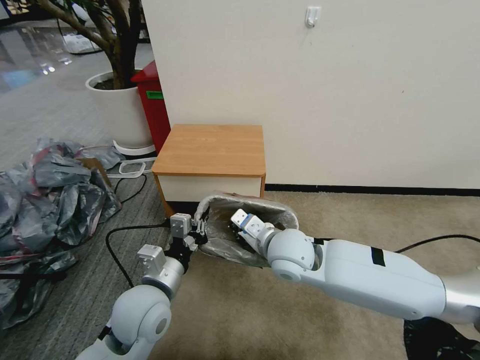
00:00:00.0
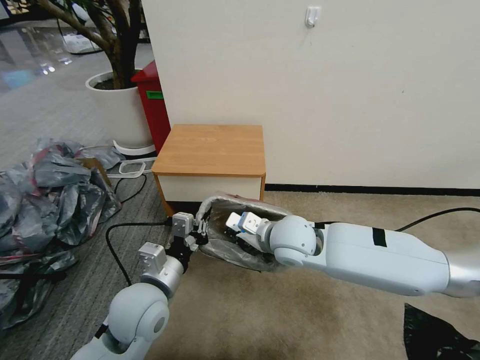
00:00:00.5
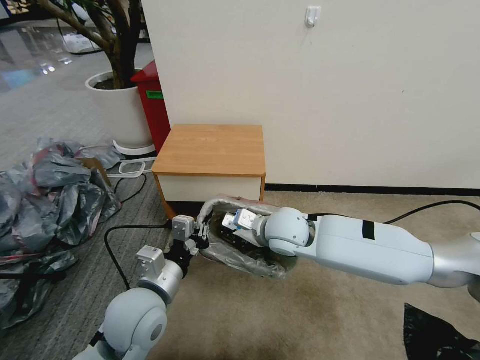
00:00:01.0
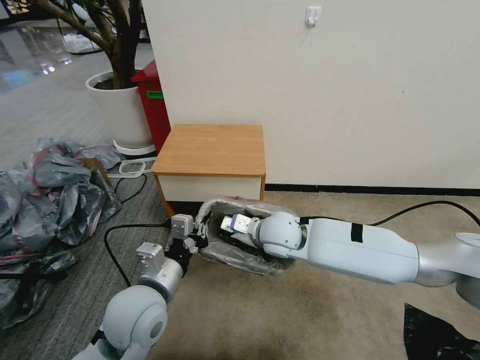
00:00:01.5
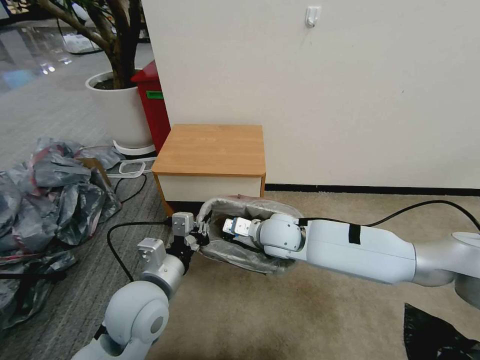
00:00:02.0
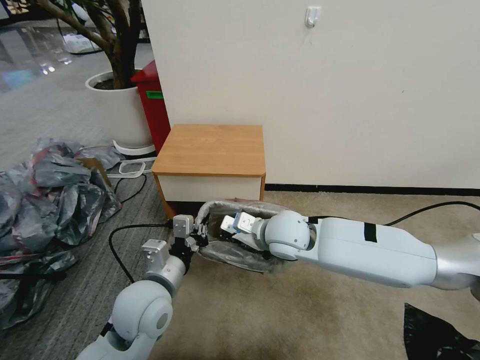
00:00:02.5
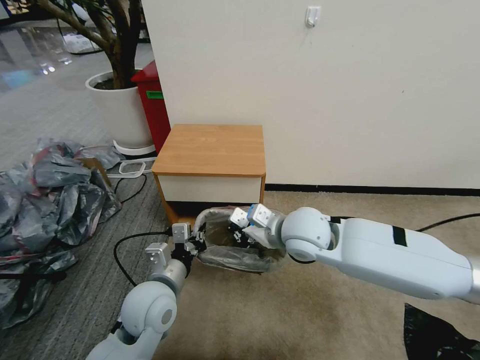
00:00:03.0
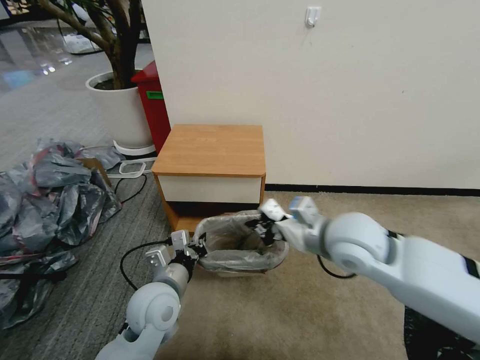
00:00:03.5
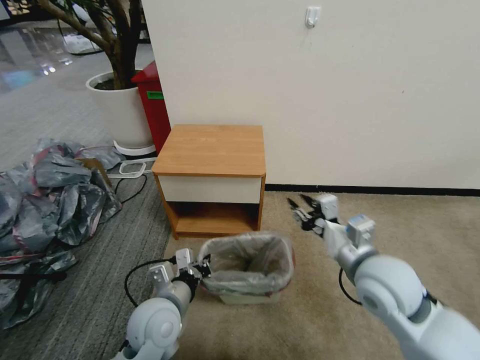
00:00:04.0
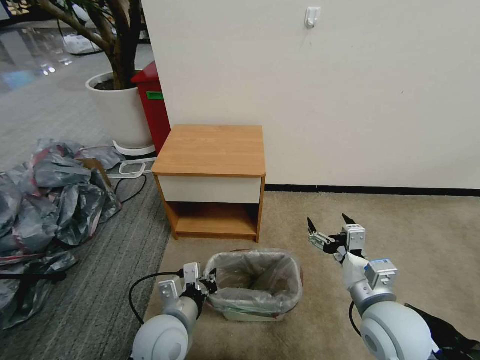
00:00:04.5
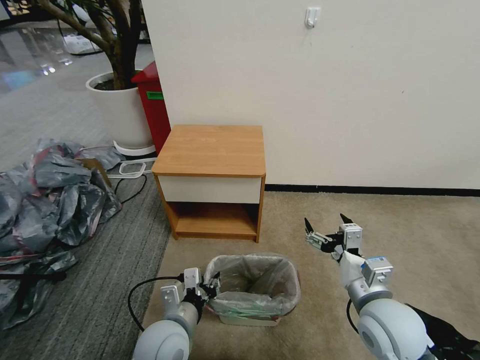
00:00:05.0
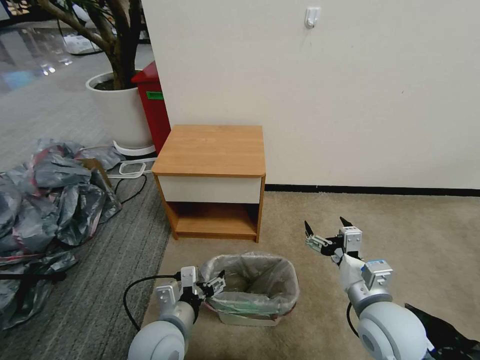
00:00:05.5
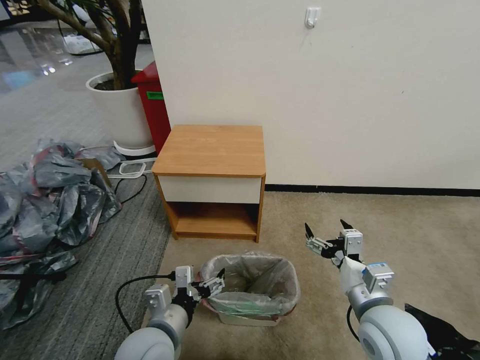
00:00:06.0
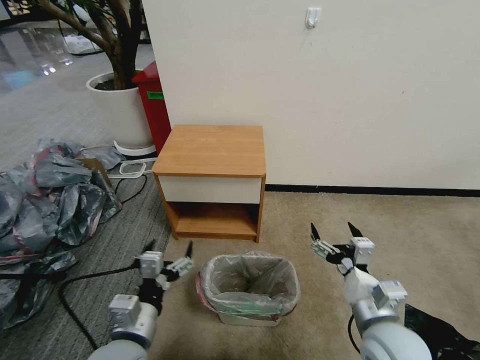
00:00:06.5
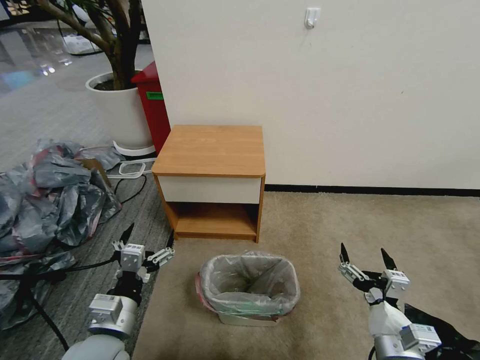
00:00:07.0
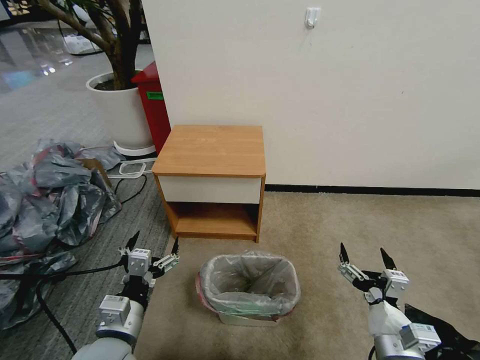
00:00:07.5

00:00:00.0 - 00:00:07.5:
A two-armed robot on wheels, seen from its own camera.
Task of the whole recording: Pick up the garbage bag from the table and place it over the trash can.
00:00:00.0 - 00:00:02.0: The right gripper travels forward by about 5 cm.
00:00:02.0 - 00:00:04.0: The right gripper shifts approximately 20 cm to the right and backward, and opens up, while the left gripper travels downward by some 10 cm.
00:00:04.0 - 00:00:05.5: The left gripper opens up; the right gripper shifts roughly 5 cm downward, and opens.
00:00:05.5 - 00:00:07.5: The right gripper travels backward and downward by some 10 cm. The left gripper is displaced to the left by roughly 10 cm.

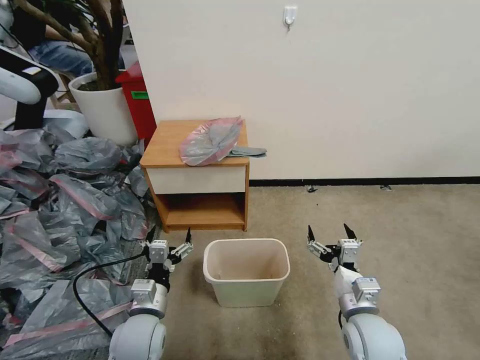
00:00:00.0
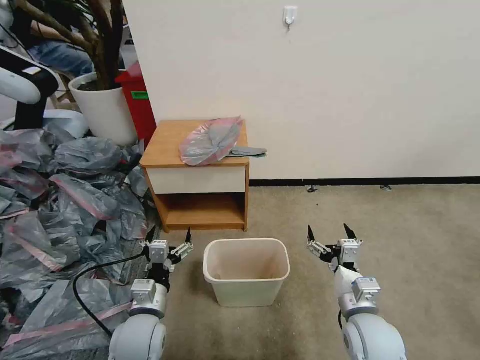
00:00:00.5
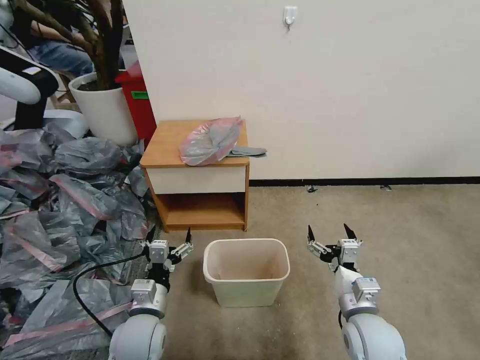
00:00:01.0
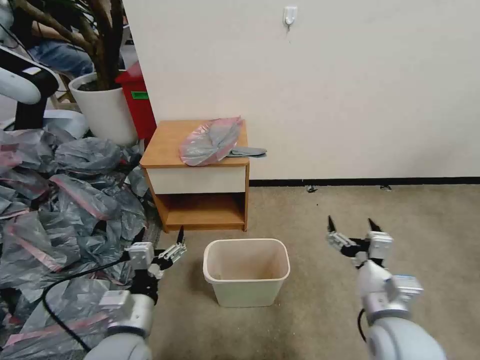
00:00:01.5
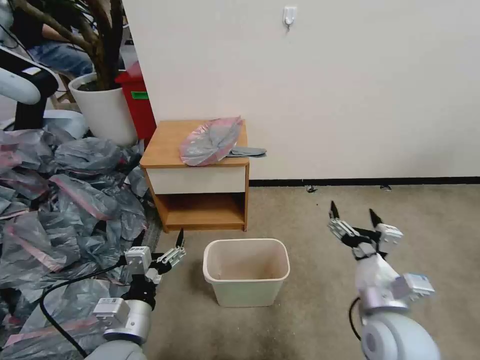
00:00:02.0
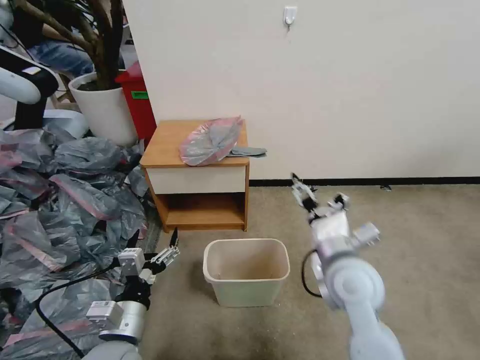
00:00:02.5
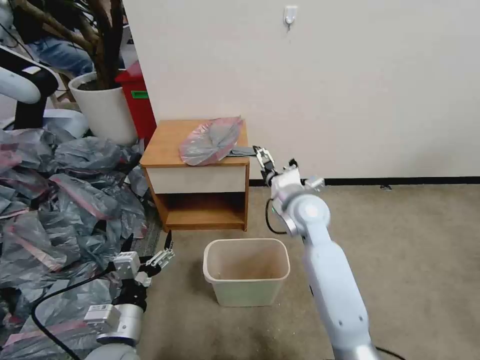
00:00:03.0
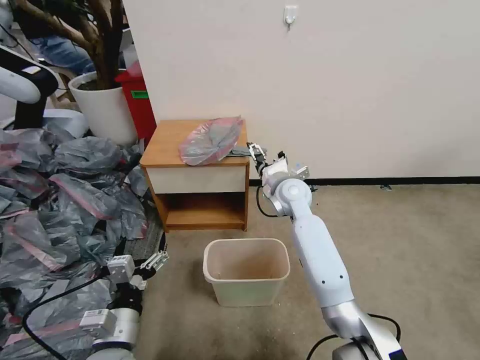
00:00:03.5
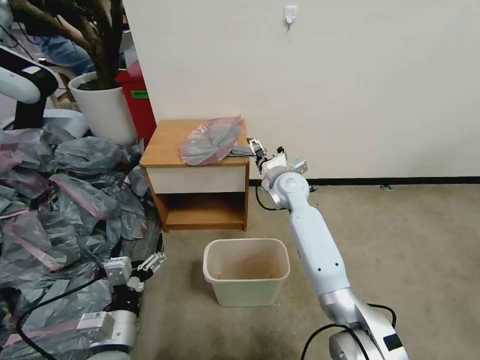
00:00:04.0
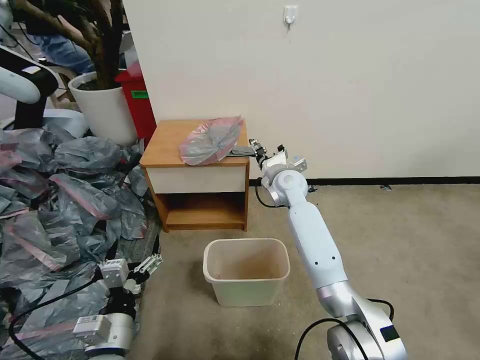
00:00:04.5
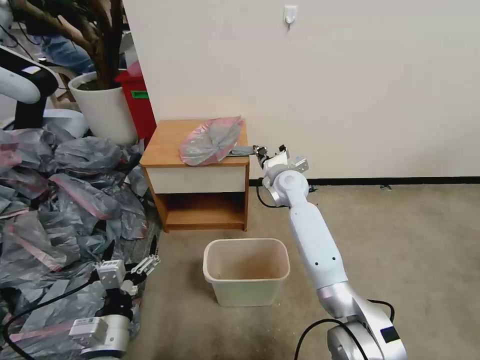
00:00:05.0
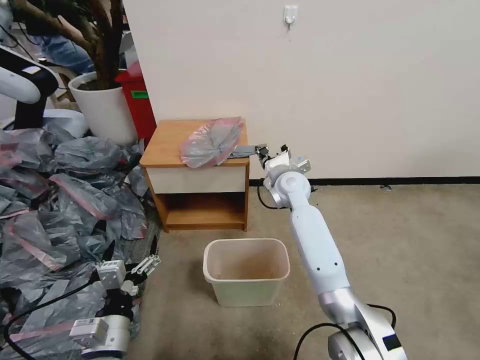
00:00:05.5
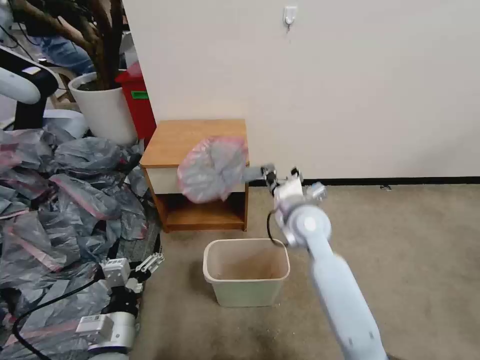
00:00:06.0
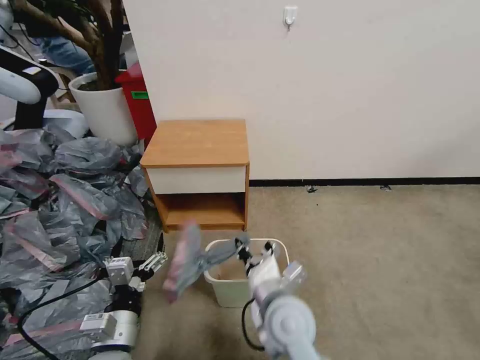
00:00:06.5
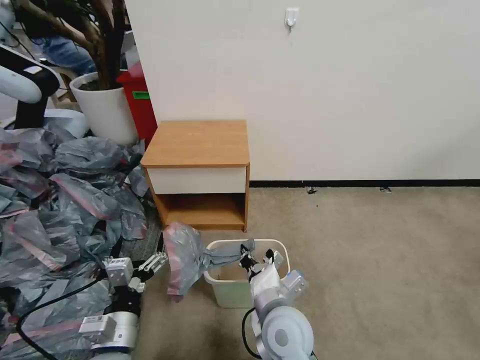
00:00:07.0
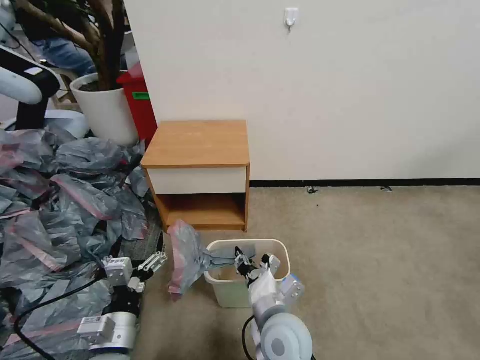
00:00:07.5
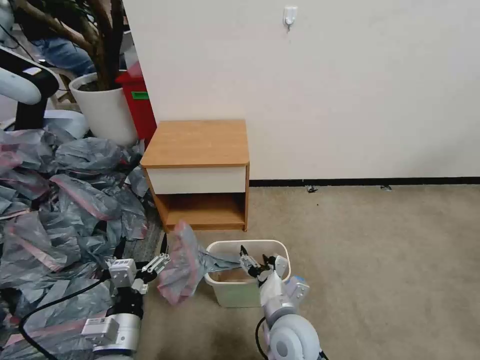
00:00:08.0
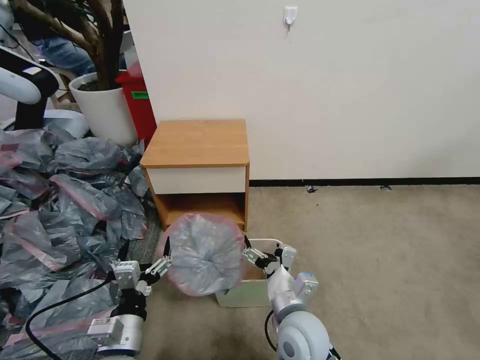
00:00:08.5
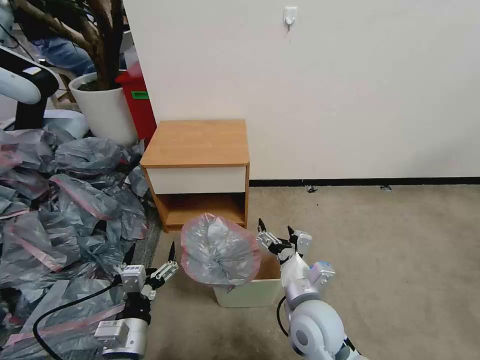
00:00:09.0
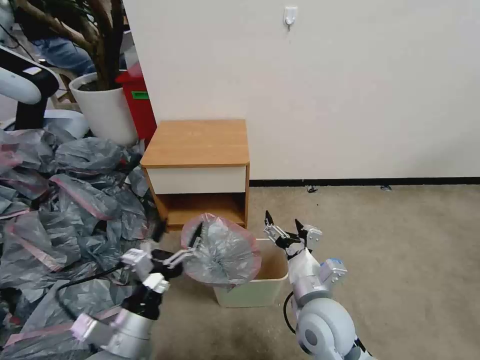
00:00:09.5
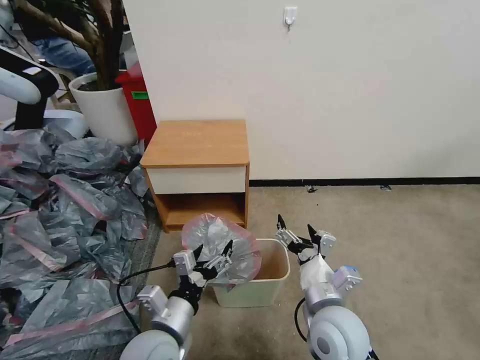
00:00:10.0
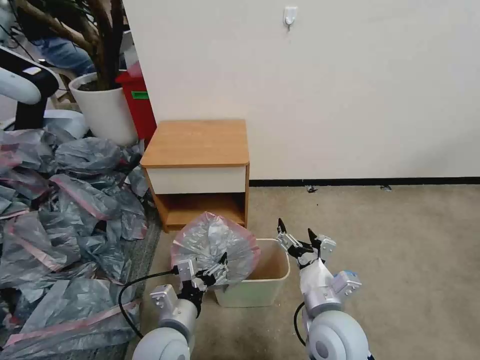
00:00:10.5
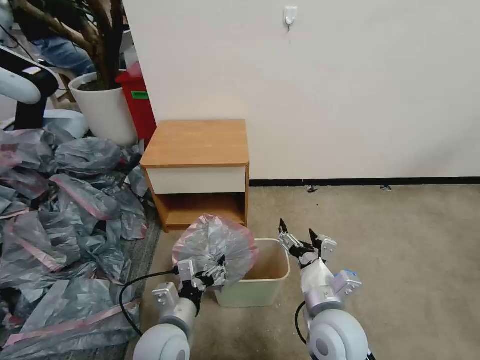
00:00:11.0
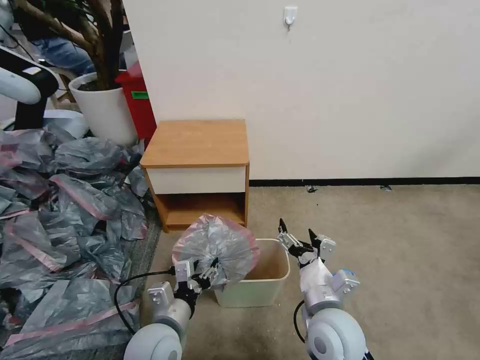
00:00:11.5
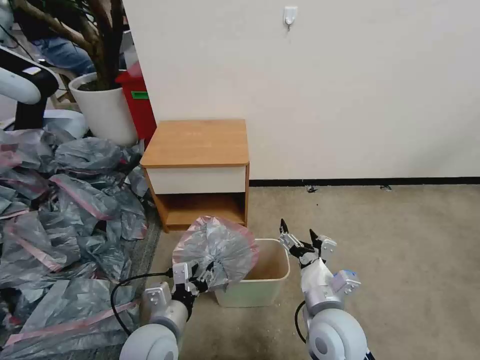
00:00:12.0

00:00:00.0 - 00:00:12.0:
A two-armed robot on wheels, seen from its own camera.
Task of the whole recording: Pick up the garbage bag from the table and place it over the trash can.
00:00:02.0 - 00:00:04.0: The right gripper moves forward, roughly 35 cm.
00:00:04.0 - 00:00:06.0: The right gripper goes about 10 cm backward, and closes up.
00:00:06.0 - 00:00:08.0: The right gripper shifts approximately 25 cm backward and downward, and opens.
00:00:08.0 - 00:00:10.0: The right gripper heads to the right and upward, covering approximately 10 cm. The left gripper heads to the right, covering some 5 cm.
00:00:10.0 - 00:00:12.0: The left gripper closes.

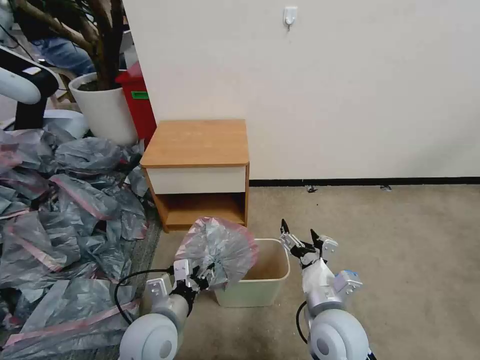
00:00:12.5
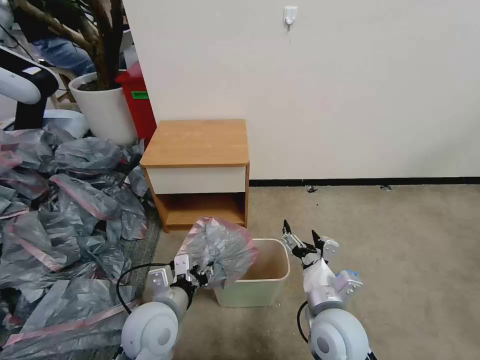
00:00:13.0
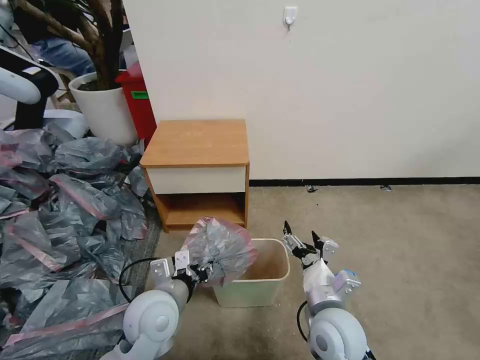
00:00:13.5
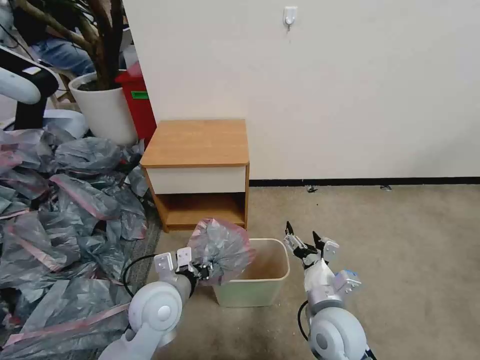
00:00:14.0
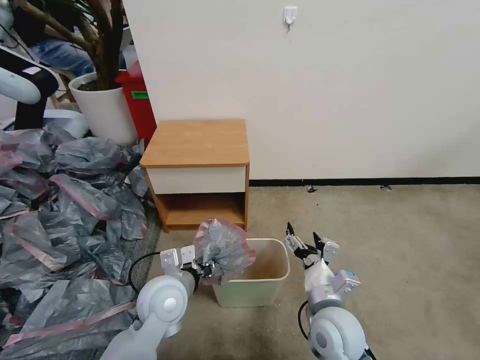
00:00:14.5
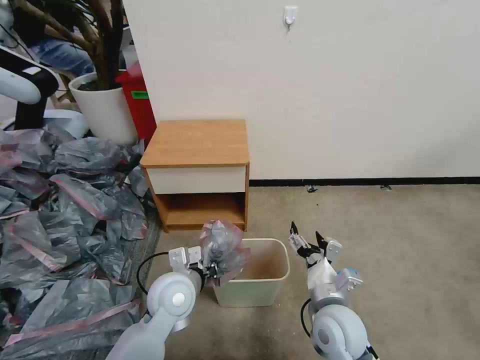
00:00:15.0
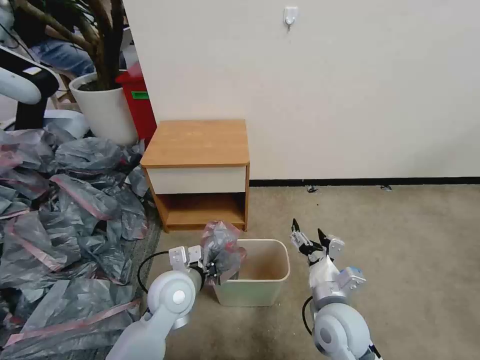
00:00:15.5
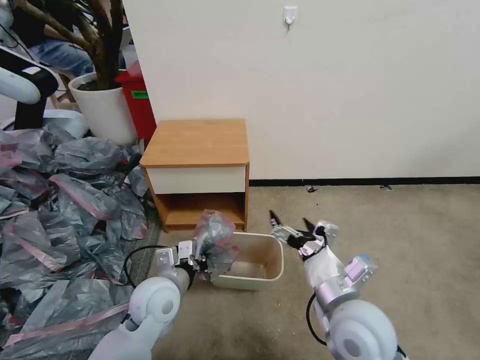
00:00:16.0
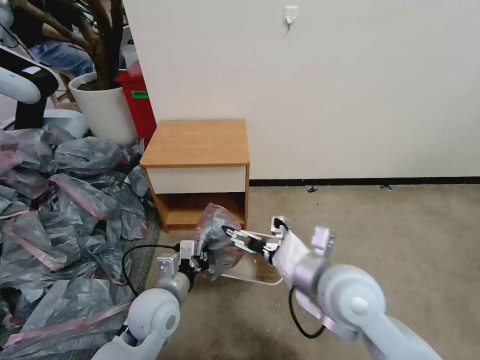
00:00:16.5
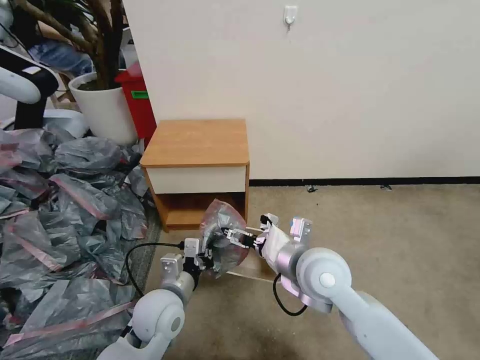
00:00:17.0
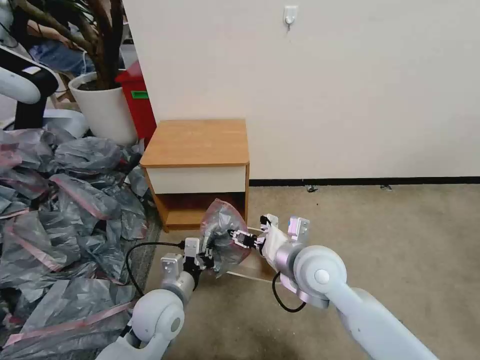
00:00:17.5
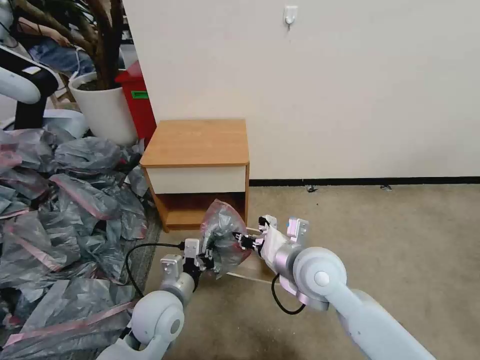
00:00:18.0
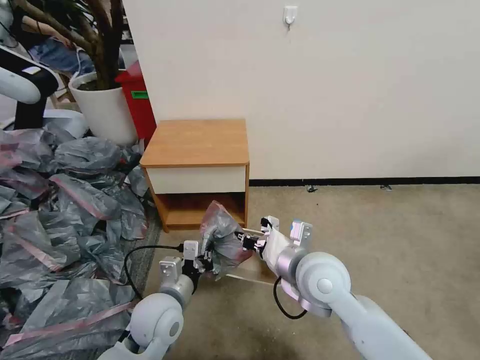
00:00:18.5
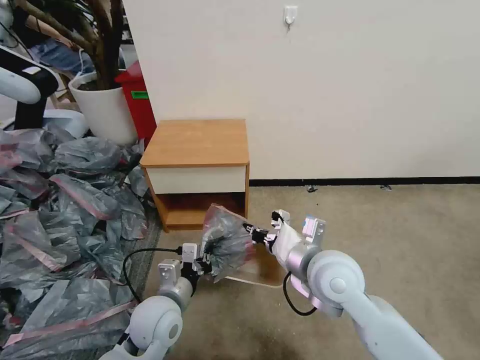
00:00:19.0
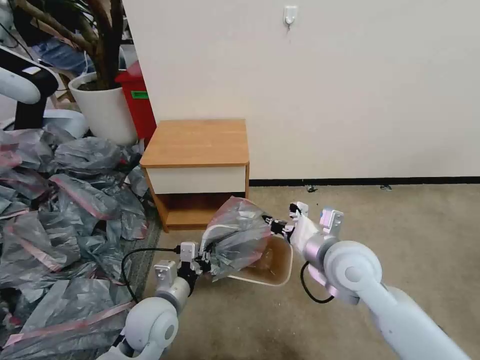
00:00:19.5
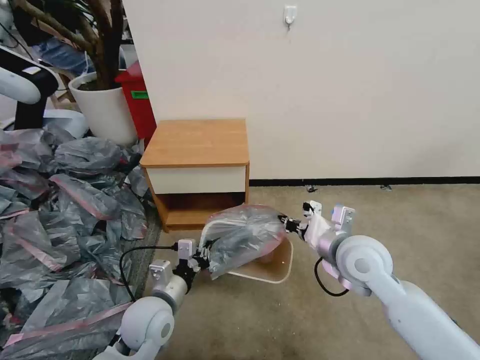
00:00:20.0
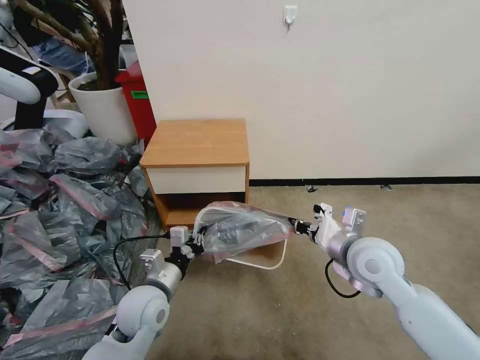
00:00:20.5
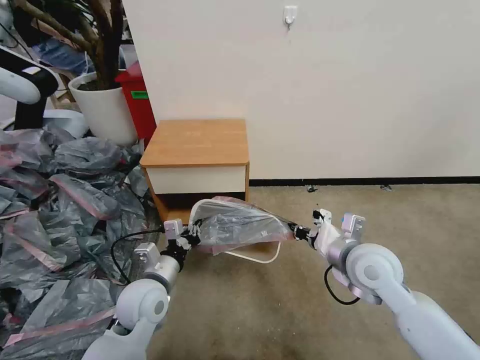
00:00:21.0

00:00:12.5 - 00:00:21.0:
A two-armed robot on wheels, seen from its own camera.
Task of the whole recording: Pick up the garbage bag from the table and place it over the trash can.
00:00:12.5 - 00:00:14.5: The left gripper moves forward, about 5 cm.
00:00:14.5 - 00:00:16.5: The left gripper closes its fingers, while the right gripper moves upward, some 15 cm.
00:00:16.5 - 00:00:19.0: The right gripper closes.
00:00:19.0 - 00:00:21.0: The right gripper heads to the right, covering roughly 10 cm.
